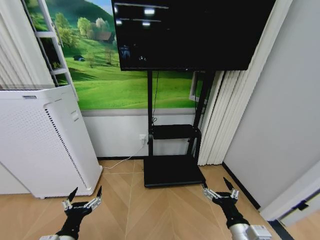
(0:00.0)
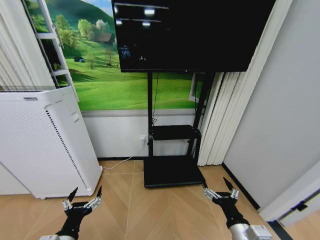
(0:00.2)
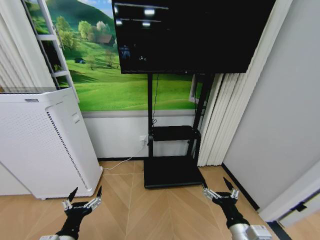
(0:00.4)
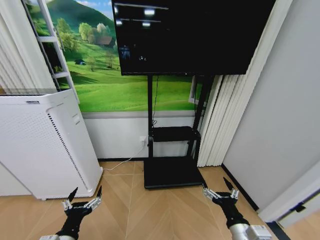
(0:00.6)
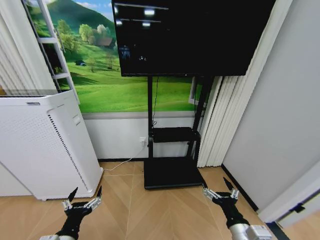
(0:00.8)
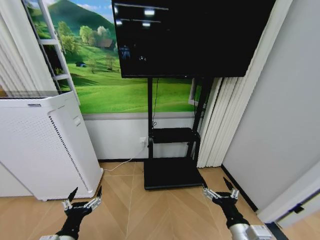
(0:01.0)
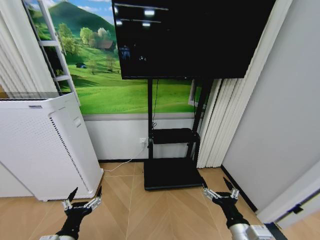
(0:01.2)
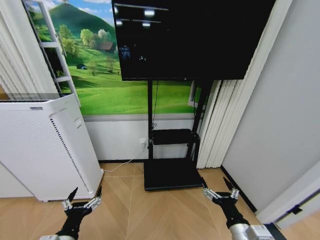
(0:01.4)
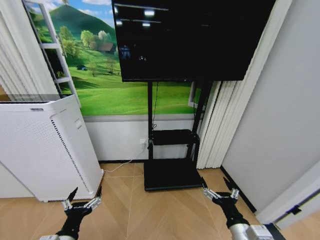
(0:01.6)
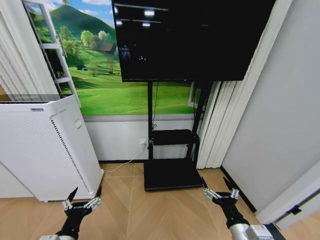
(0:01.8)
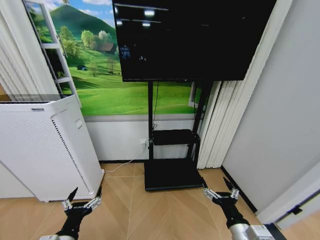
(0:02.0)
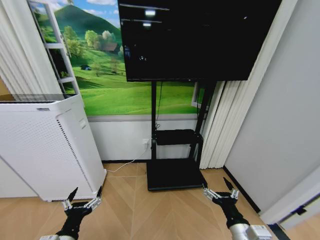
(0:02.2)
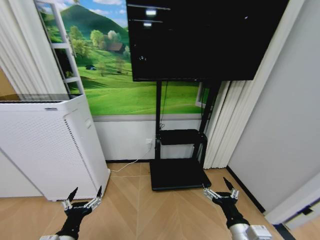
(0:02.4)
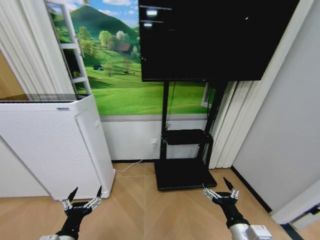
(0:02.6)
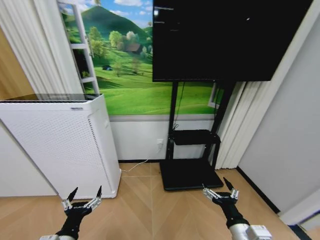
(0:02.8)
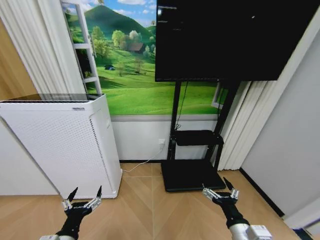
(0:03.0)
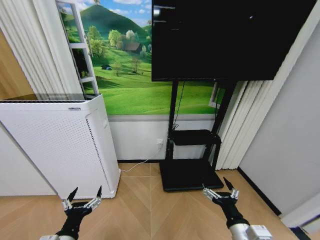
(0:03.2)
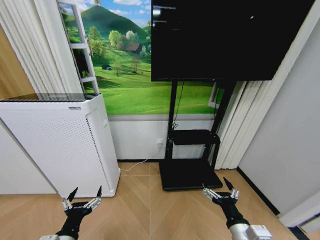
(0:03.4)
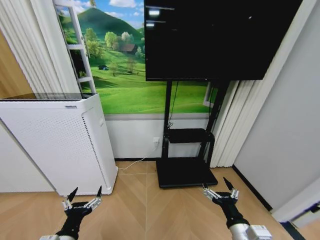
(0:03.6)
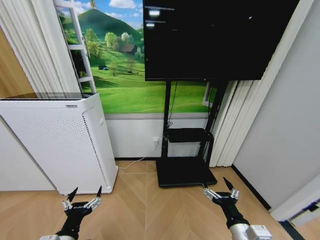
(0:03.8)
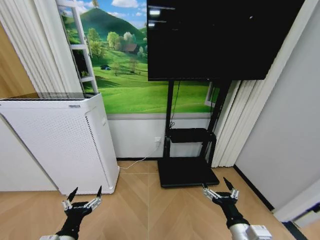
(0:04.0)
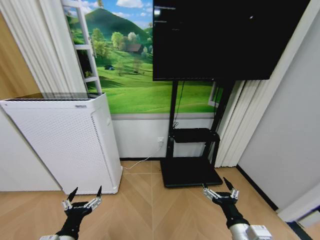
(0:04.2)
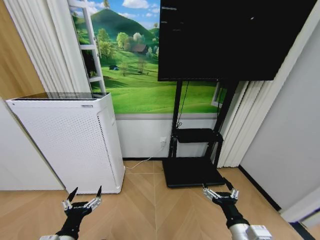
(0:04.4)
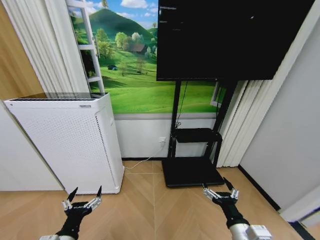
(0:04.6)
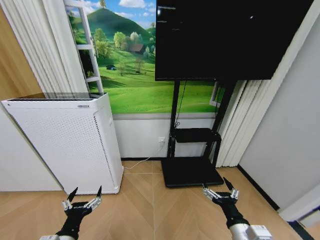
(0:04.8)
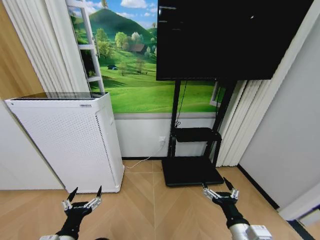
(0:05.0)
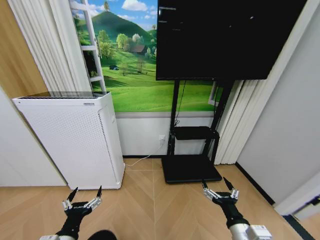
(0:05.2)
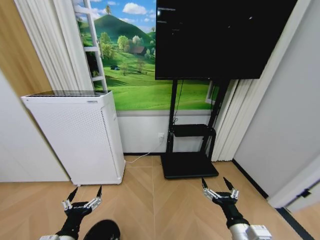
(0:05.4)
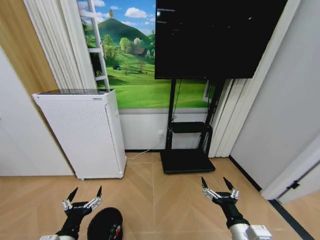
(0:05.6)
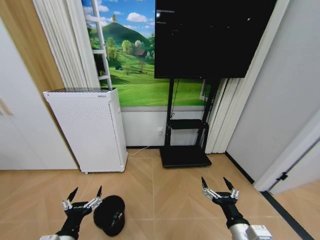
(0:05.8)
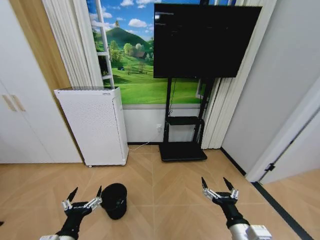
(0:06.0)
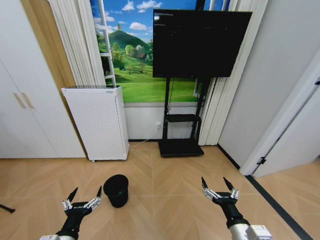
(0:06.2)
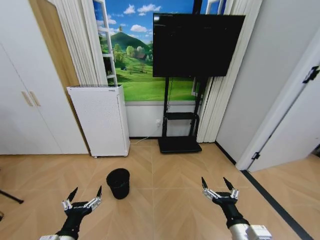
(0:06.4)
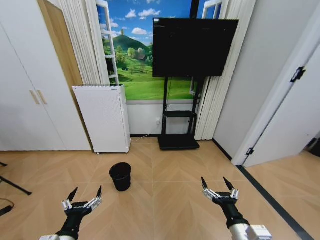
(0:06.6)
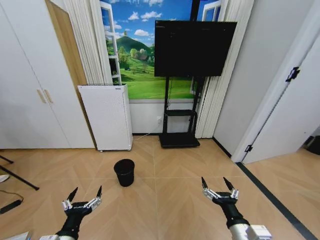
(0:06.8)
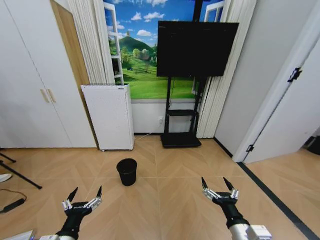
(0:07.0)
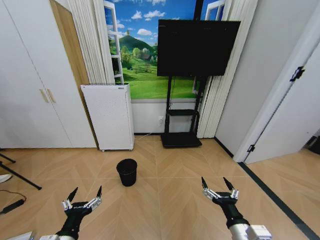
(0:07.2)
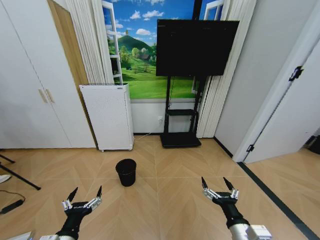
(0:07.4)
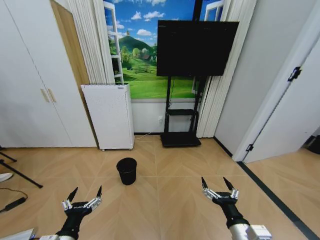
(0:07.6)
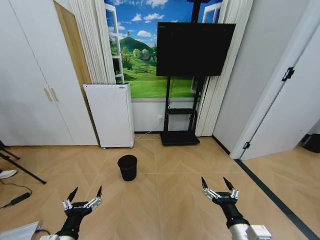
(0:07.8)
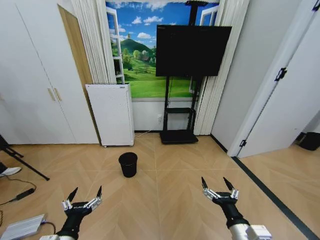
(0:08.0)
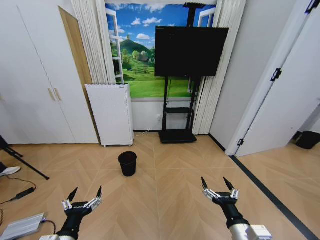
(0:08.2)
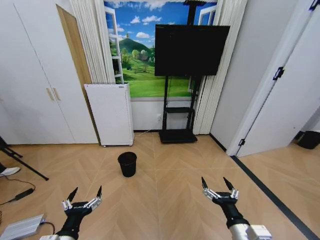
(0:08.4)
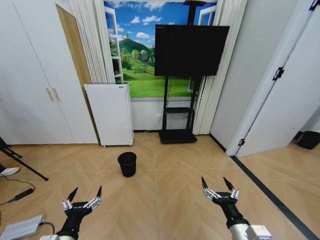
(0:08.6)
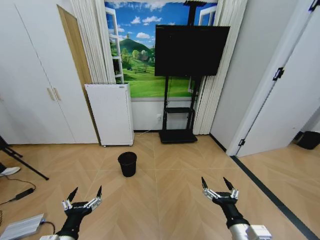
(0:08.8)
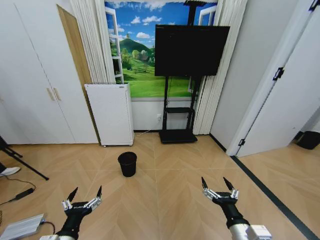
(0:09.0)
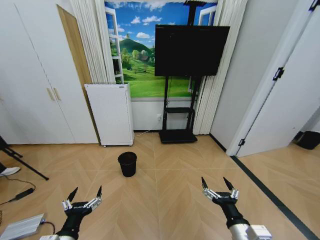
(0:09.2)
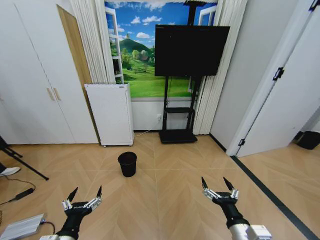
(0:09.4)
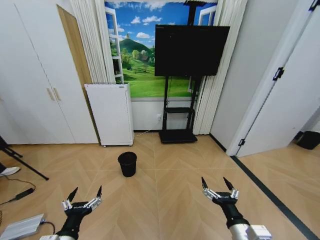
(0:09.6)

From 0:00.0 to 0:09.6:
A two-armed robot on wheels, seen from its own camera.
Task of the whole recording: Pick up the trash bin and place the garbage on the floor into it.
From 0:00.0 to 0:01.6: The two grippers keep their place.
From 0:03.2 to 0:04.8: Both grippers stay put.
From 0:08.0 to 0:09.6: Both grippers stay about where they are.

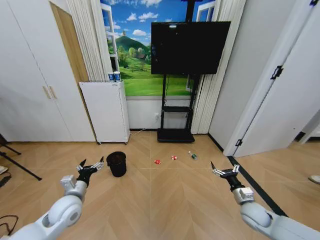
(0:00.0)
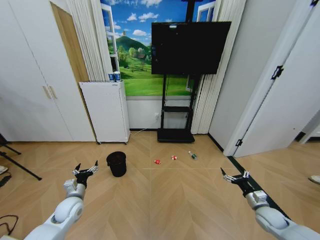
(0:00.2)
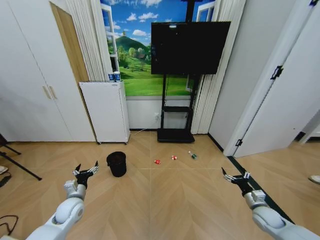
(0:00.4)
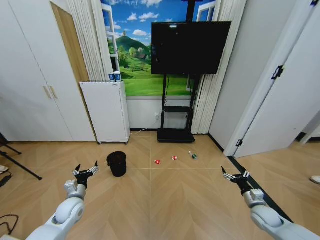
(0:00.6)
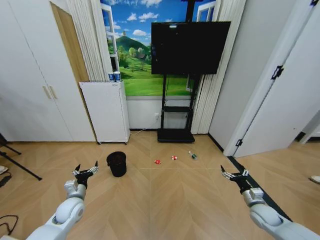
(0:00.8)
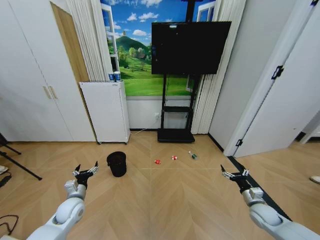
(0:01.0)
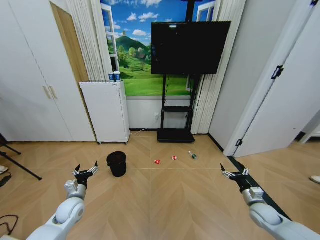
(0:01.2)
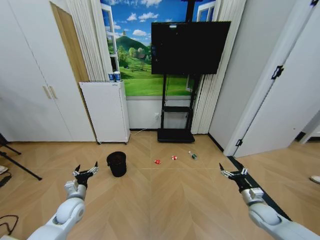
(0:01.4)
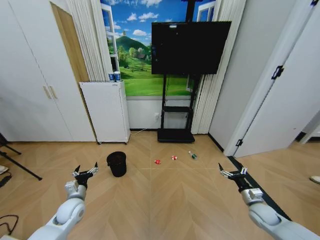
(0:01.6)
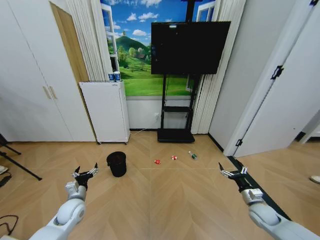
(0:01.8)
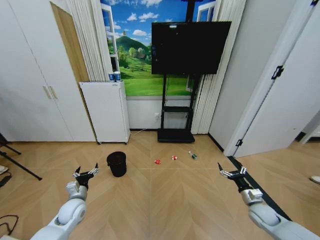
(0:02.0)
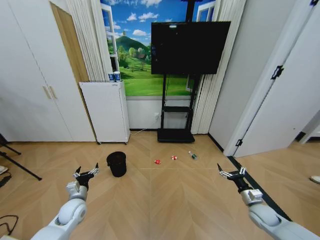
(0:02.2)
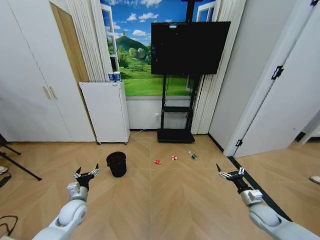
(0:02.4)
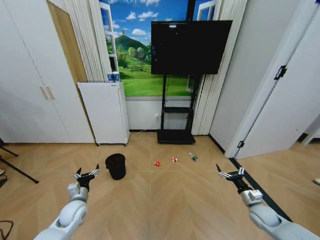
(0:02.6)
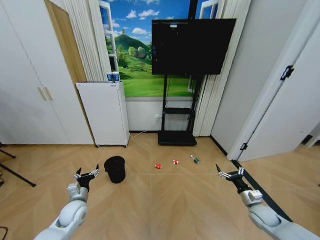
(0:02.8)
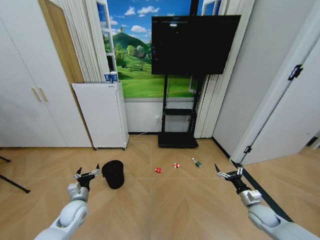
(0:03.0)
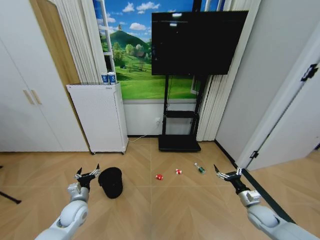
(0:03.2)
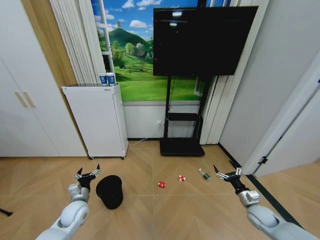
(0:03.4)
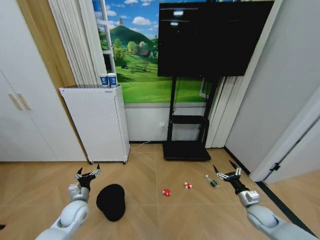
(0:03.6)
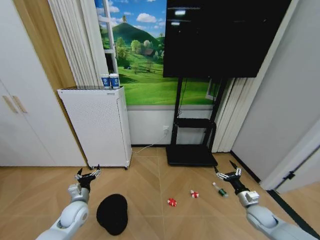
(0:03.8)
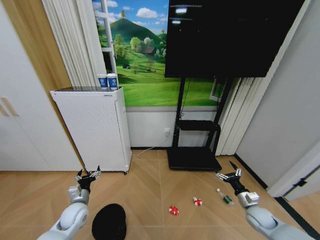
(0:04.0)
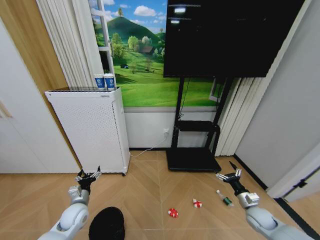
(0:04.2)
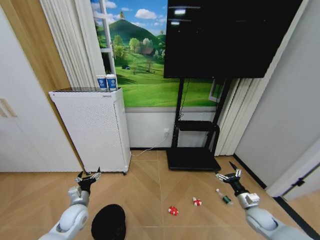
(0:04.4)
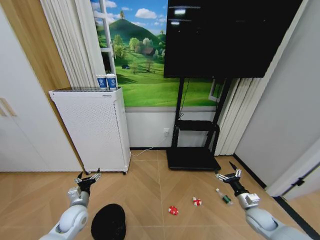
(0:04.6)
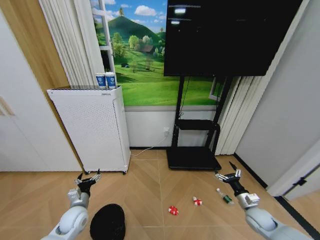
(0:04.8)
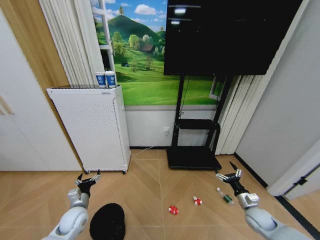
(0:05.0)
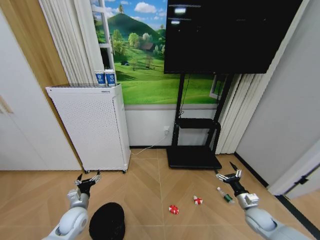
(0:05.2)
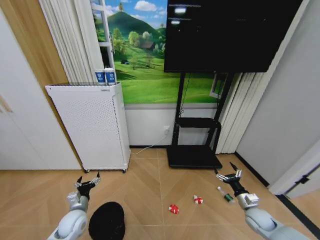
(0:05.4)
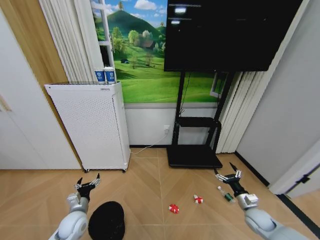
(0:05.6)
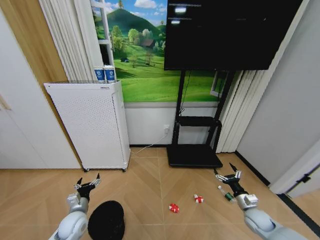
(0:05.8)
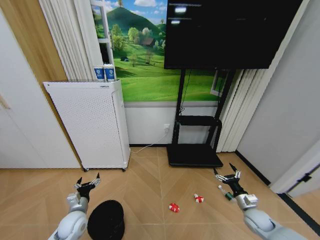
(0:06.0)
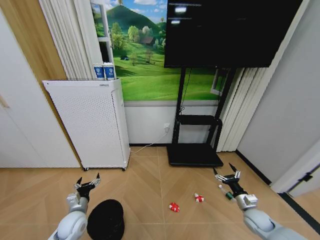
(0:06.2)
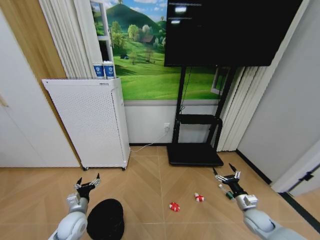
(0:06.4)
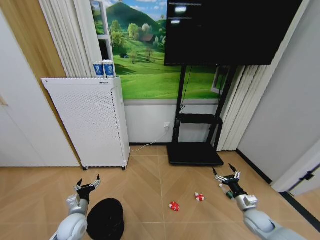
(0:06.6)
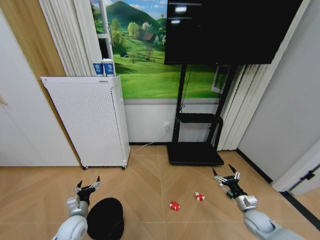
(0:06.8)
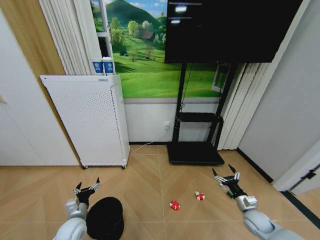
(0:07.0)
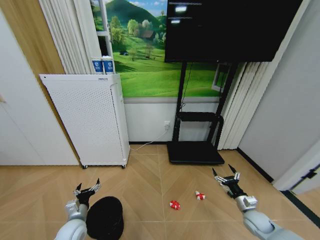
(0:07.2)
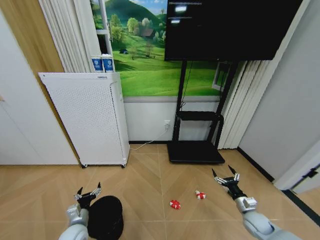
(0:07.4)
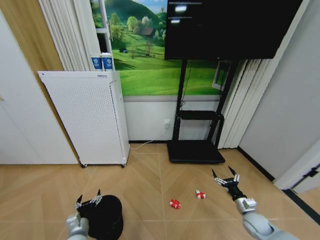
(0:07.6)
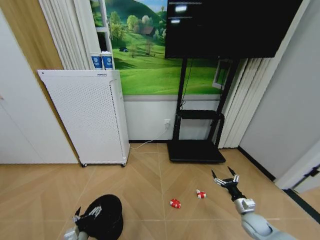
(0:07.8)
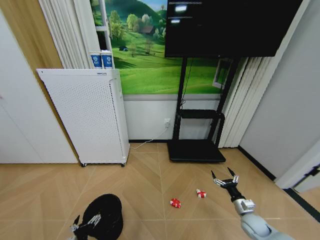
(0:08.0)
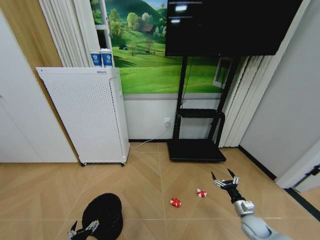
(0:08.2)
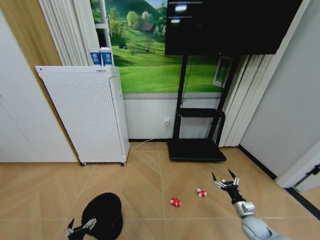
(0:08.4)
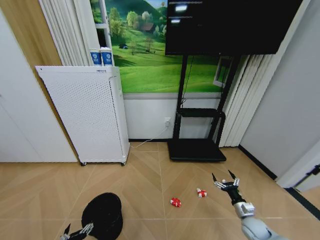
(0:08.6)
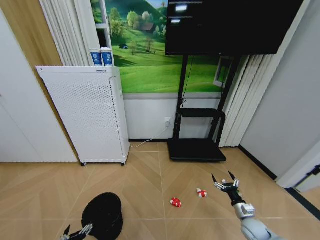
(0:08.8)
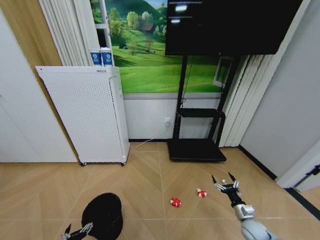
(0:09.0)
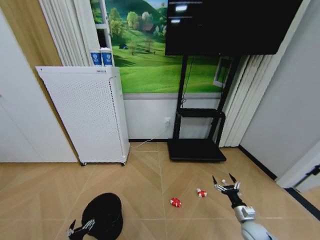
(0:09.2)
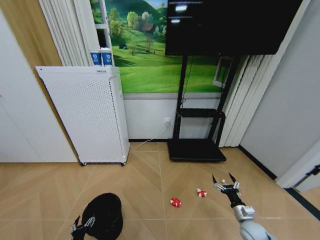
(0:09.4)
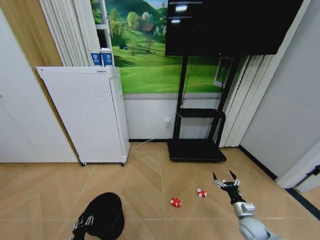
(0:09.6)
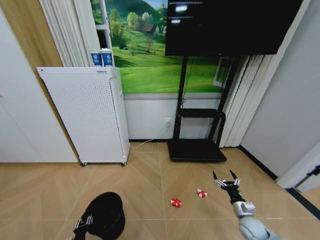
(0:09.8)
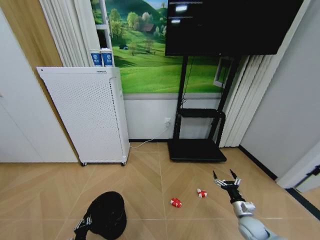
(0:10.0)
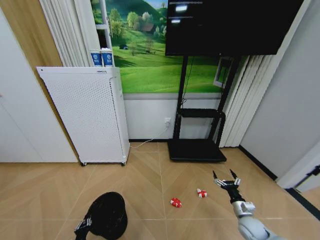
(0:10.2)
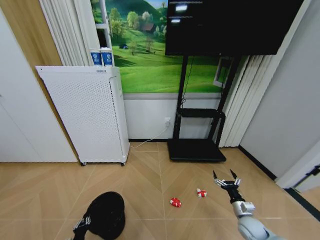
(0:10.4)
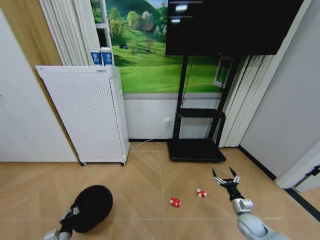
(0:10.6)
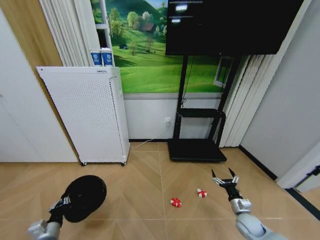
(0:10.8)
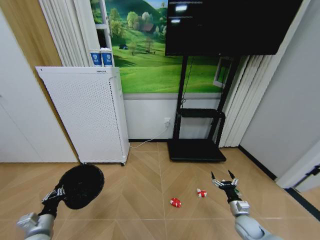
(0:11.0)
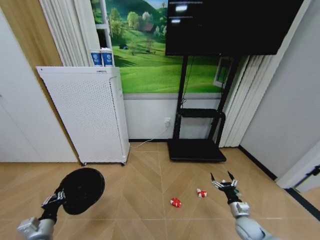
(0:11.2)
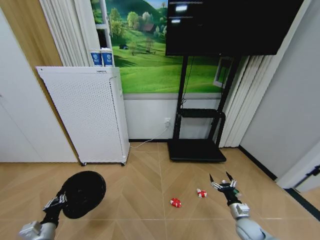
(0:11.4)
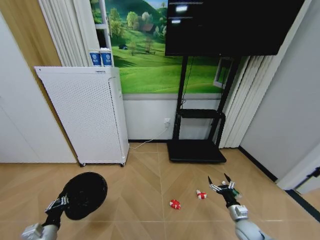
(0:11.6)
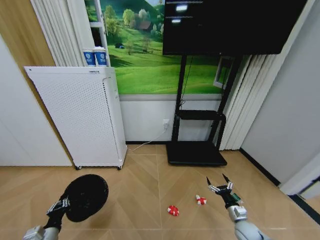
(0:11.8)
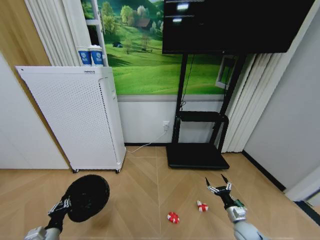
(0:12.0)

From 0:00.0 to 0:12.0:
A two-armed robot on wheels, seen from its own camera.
Task of the whole recording: Pick up the trash bin and place the garbage on the floor into it.
From 0:04.4 to 0:06.0: The grippers make only small movements.
From 0:06.0 to 0:07.6: The left gripper is displaced backward by approximately 5 cm.
From 0:07.6 to 0:09.0: The left gripper travels backward and downward by approximately 10 cm.
From 0:09.0 to 0:10.4: The left gripper closes.
From 0:10.4 to 0:12.0: The left gripper travels upward by approximately 15 cm.

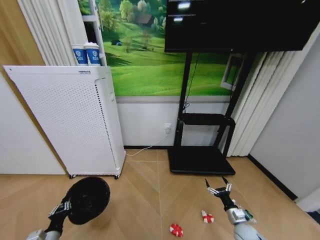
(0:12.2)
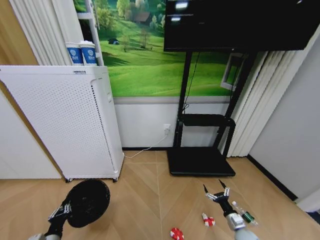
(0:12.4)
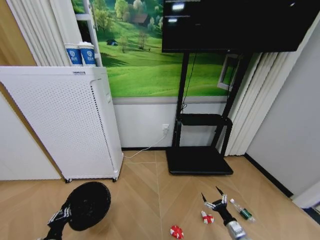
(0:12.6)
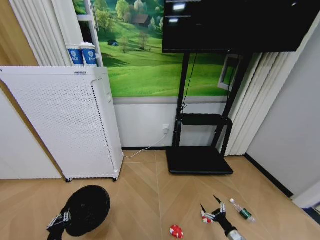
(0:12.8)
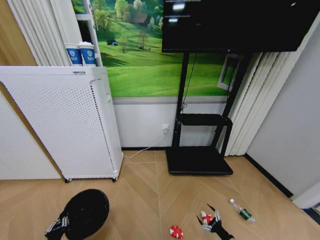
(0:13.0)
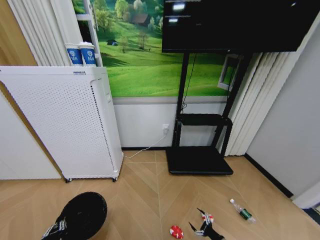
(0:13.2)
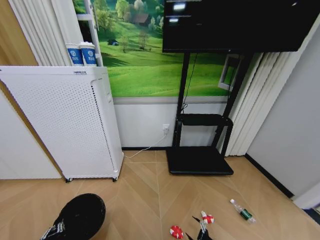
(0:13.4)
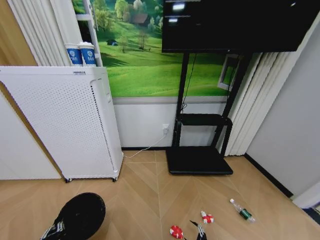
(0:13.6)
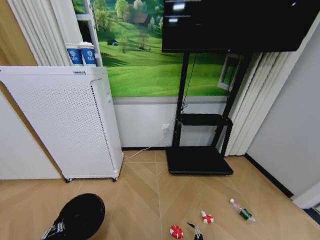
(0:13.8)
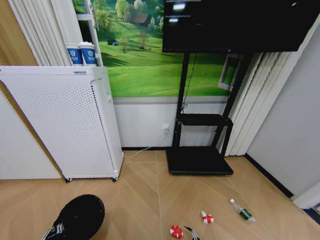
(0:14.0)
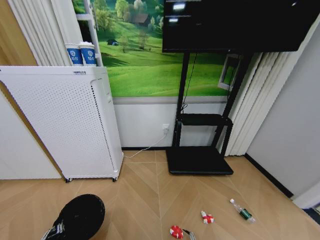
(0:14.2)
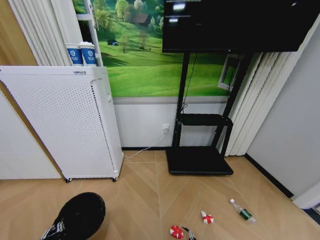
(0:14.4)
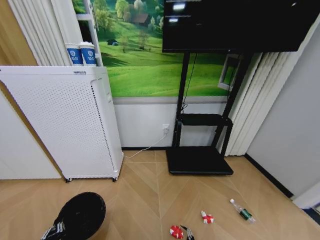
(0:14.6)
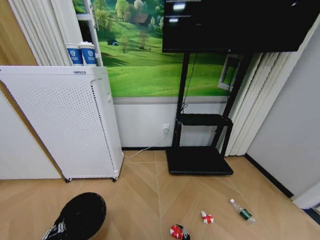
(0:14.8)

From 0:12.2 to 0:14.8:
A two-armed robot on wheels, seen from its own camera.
Task of the whole recording: Pick up the trash bin and place the garbage on the floor into it.
From 0:12.2 to 0:13.4: The left gripper shifts about 5 cm backward. Meanwhile the right gripper travels downward and backward by roughly 15 cm.
